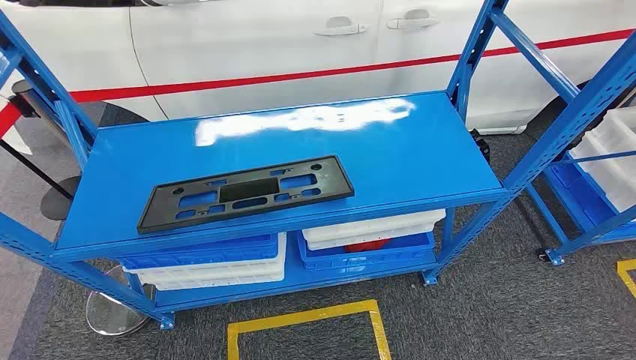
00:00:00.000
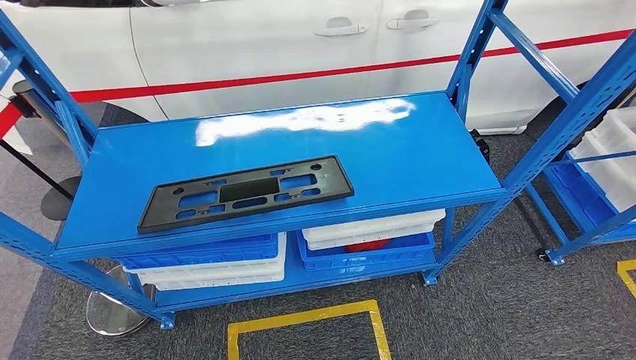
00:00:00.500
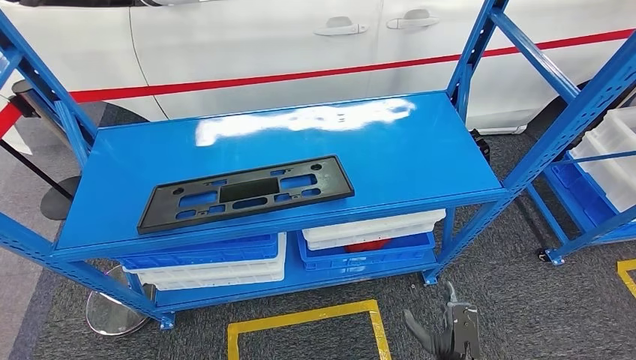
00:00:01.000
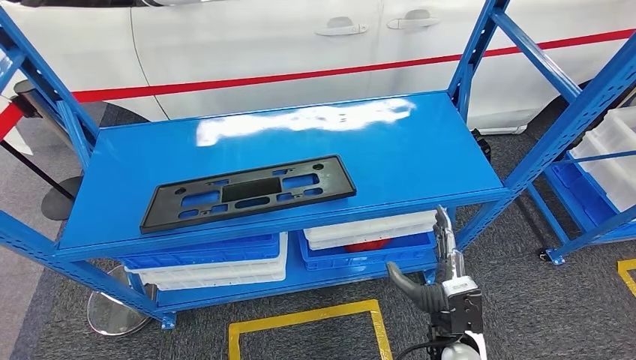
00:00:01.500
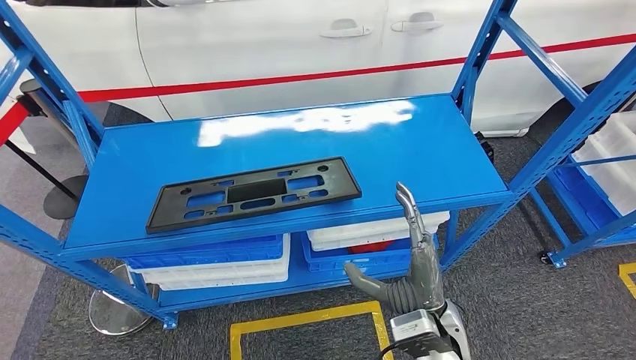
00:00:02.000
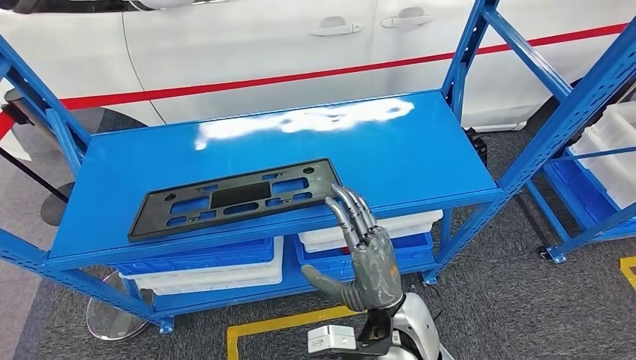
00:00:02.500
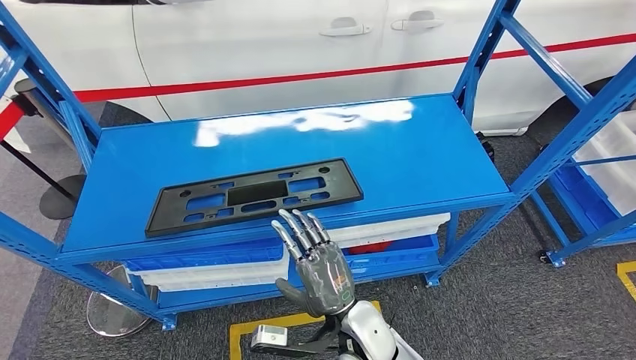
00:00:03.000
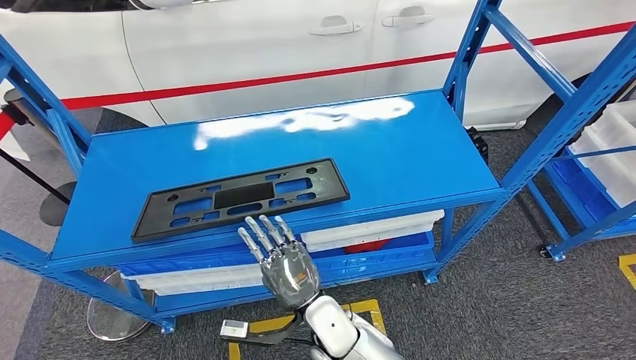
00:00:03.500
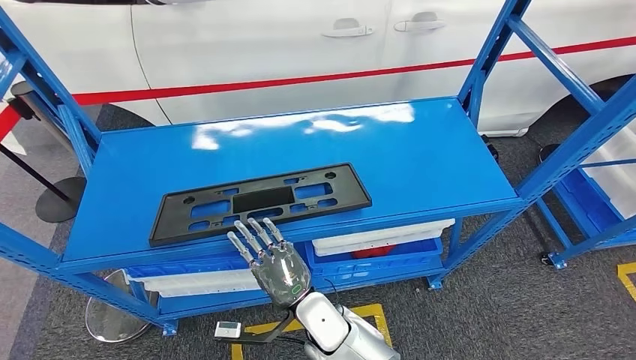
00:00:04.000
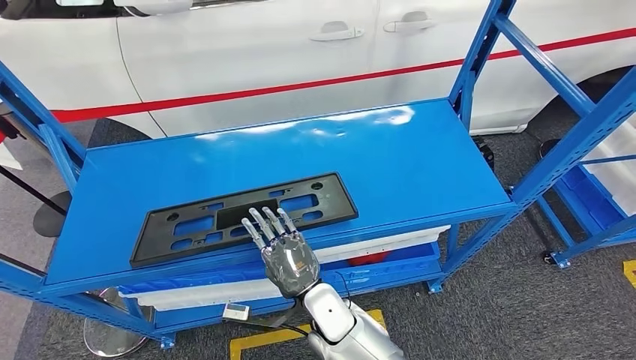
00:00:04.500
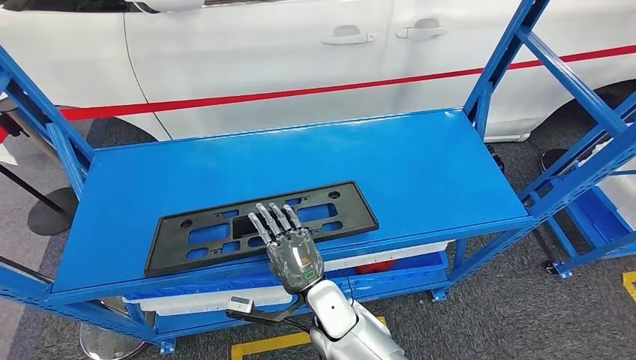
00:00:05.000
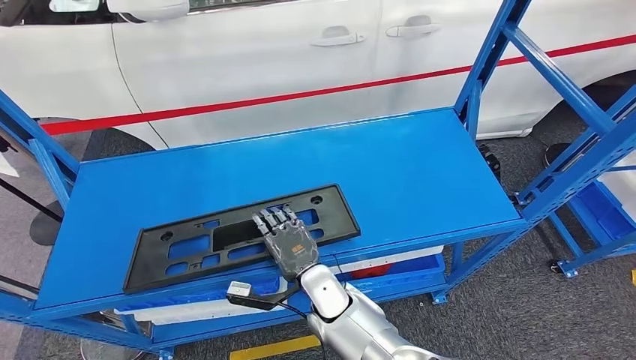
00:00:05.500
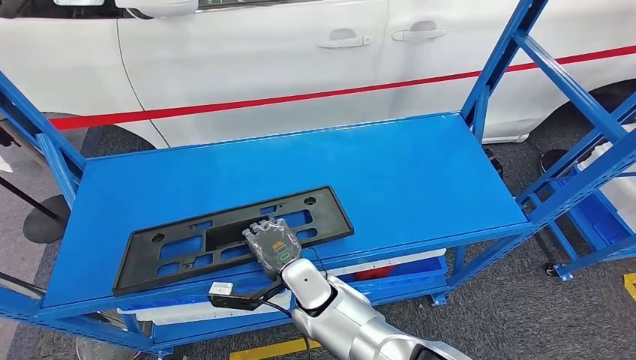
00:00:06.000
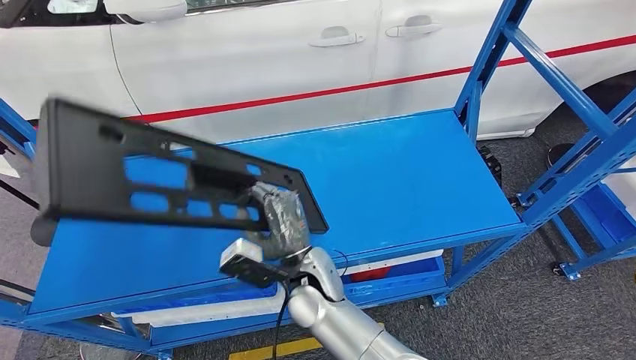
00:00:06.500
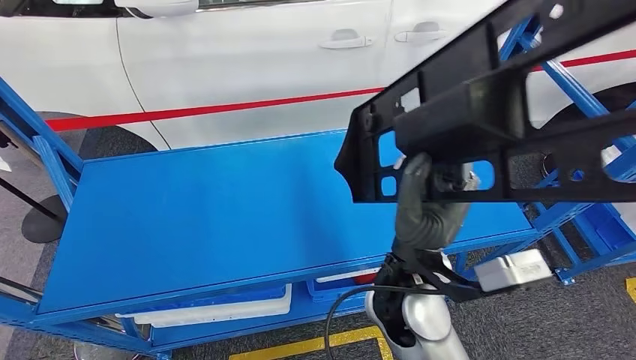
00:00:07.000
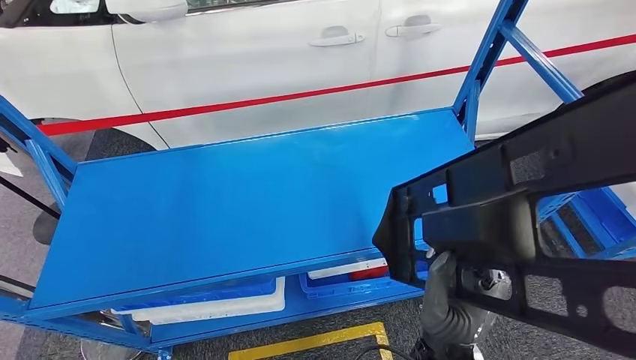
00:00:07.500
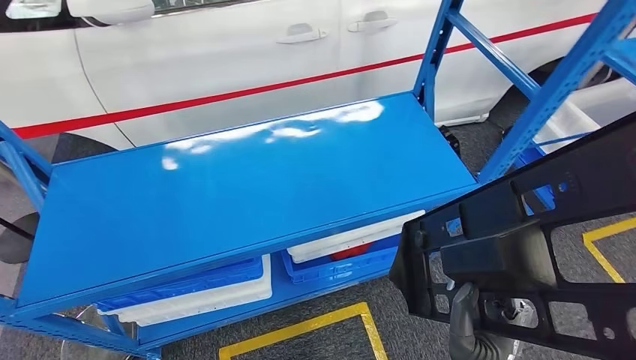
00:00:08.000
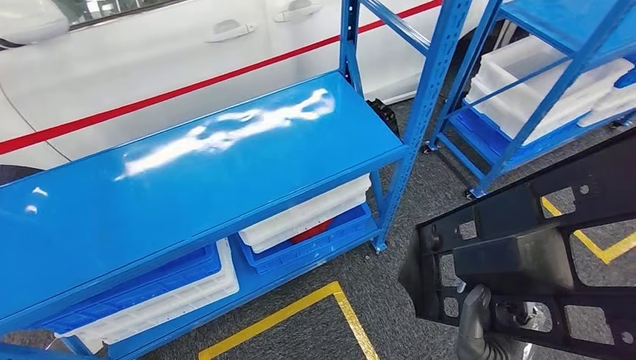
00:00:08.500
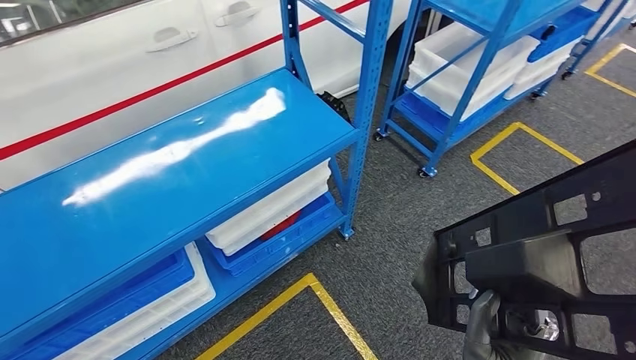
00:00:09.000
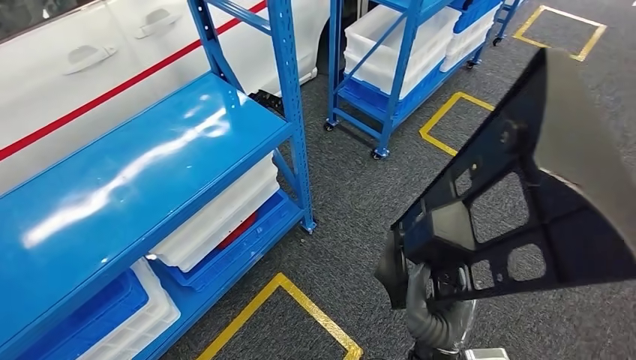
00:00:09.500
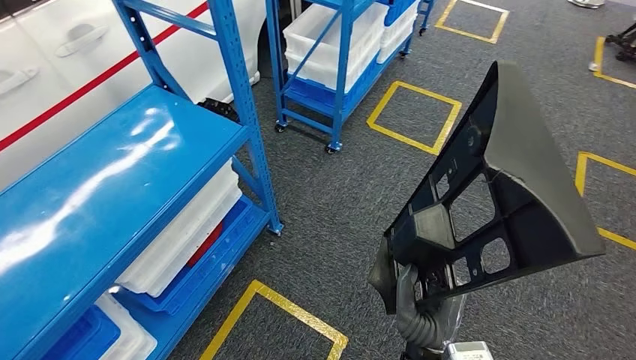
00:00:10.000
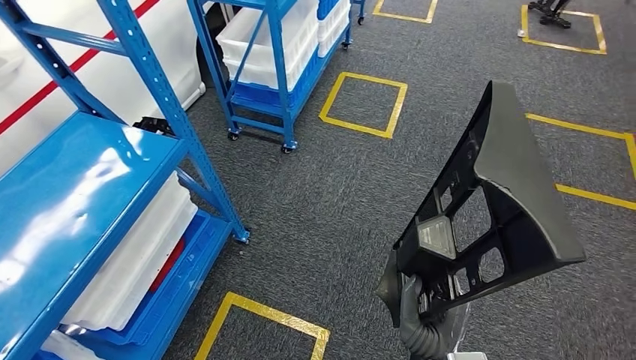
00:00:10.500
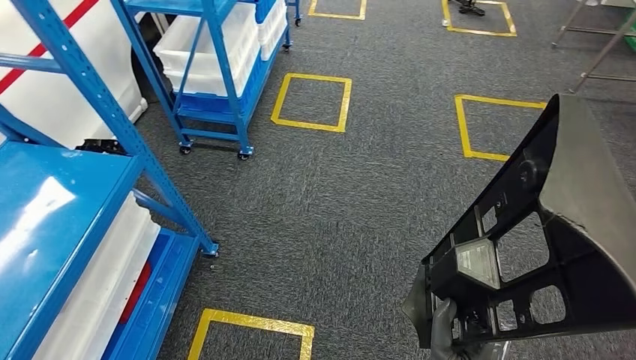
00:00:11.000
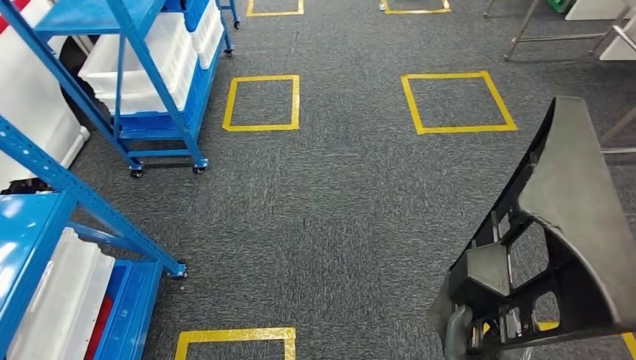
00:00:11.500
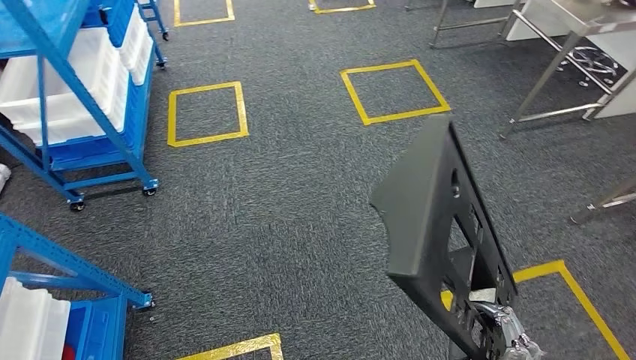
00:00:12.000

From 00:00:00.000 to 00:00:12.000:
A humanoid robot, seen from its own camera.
Step, from 00:00:00.000 to 00:00:07.500: Pick up the large material from the shelf.

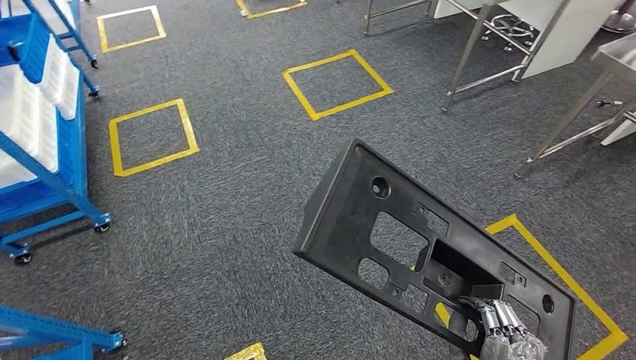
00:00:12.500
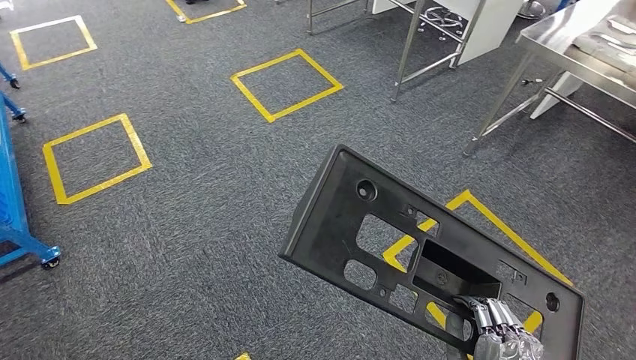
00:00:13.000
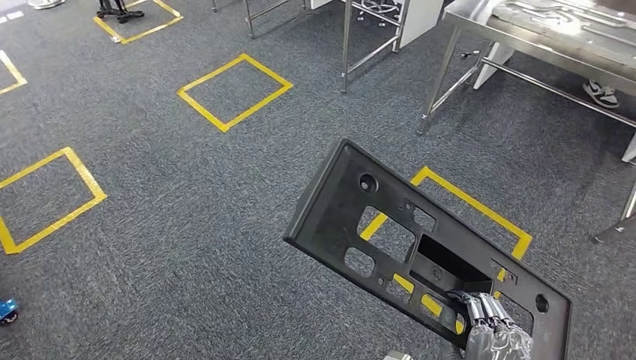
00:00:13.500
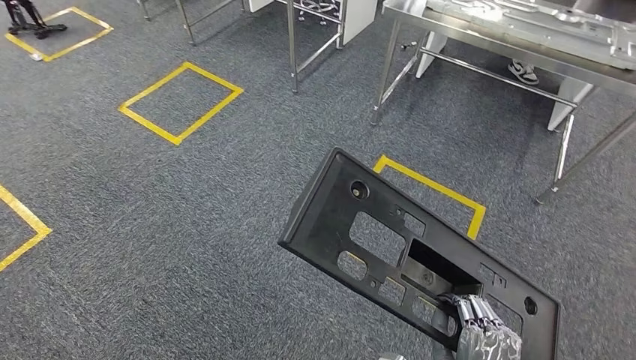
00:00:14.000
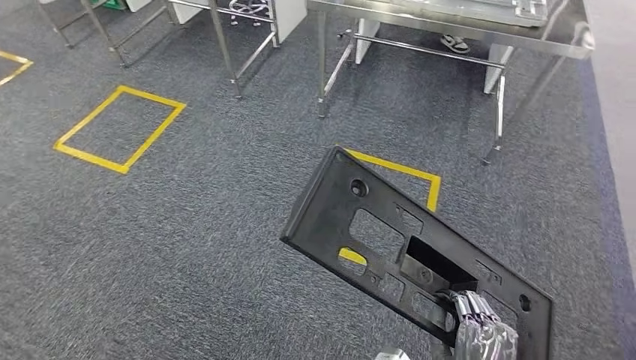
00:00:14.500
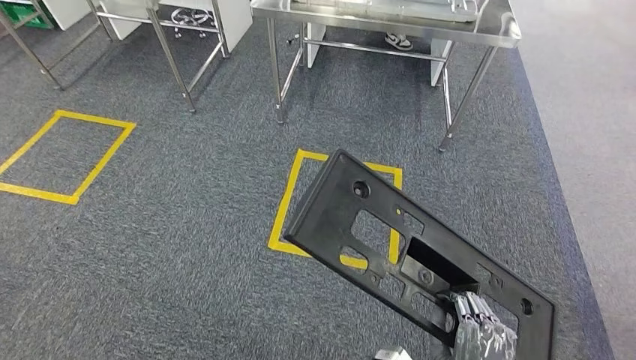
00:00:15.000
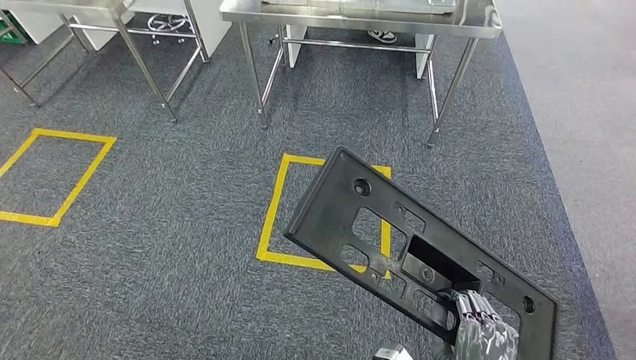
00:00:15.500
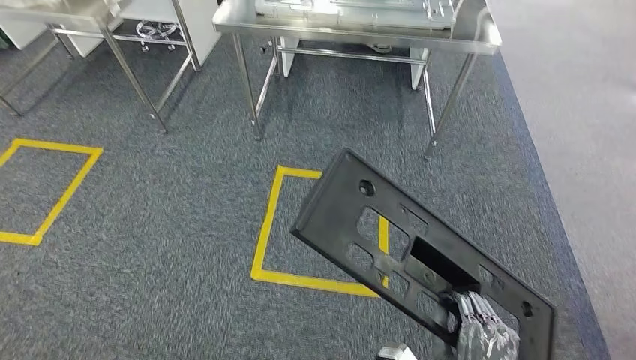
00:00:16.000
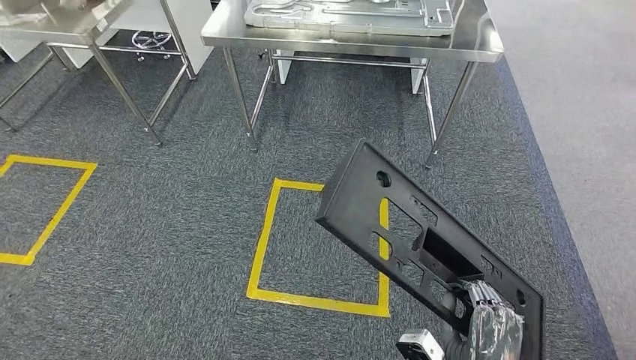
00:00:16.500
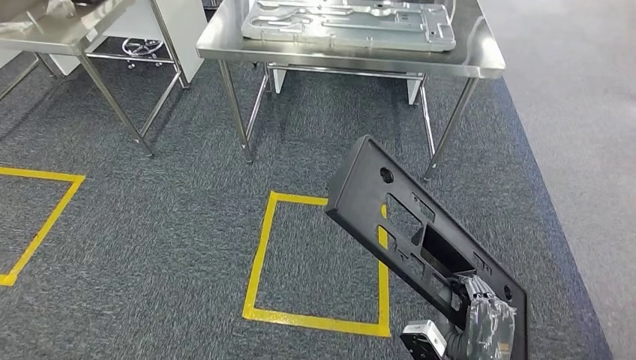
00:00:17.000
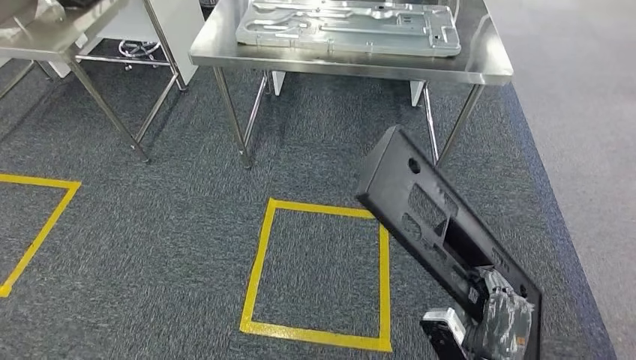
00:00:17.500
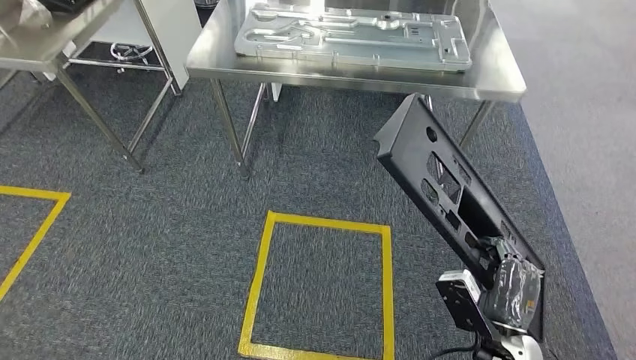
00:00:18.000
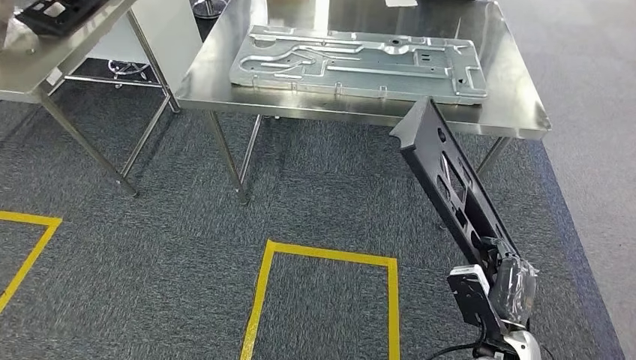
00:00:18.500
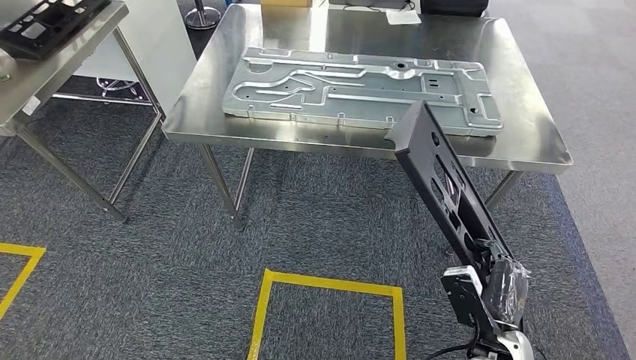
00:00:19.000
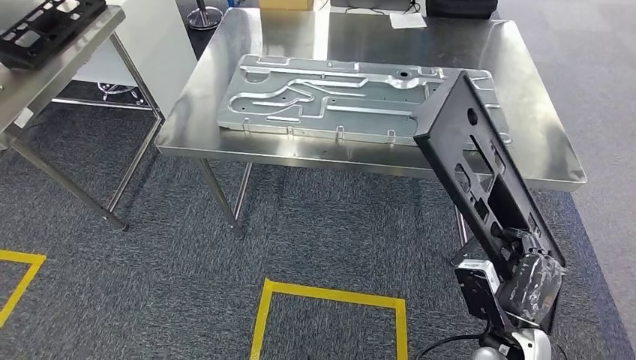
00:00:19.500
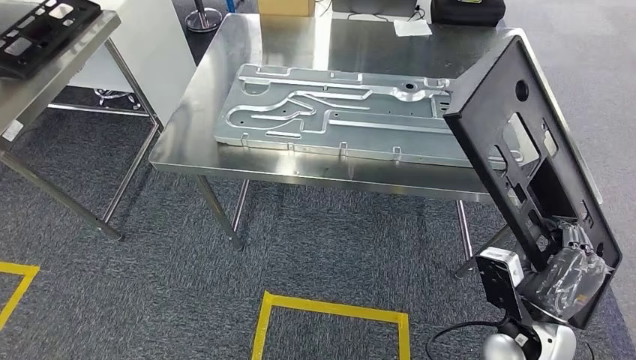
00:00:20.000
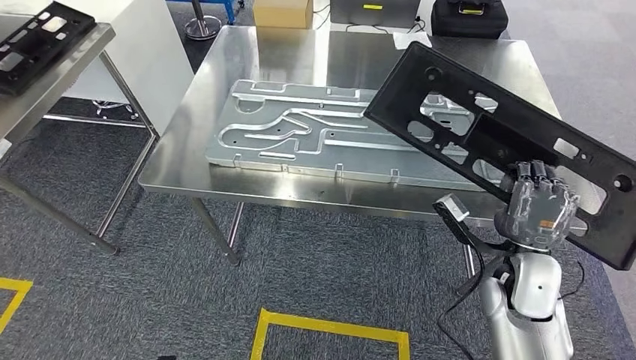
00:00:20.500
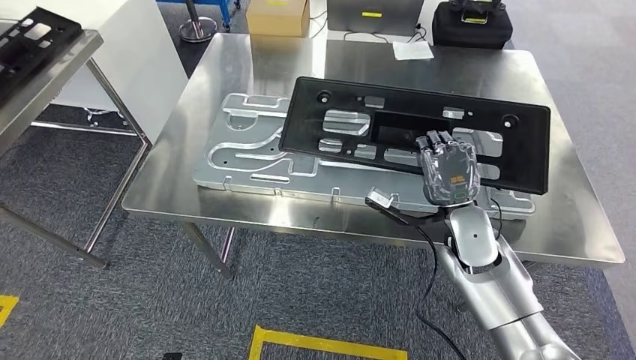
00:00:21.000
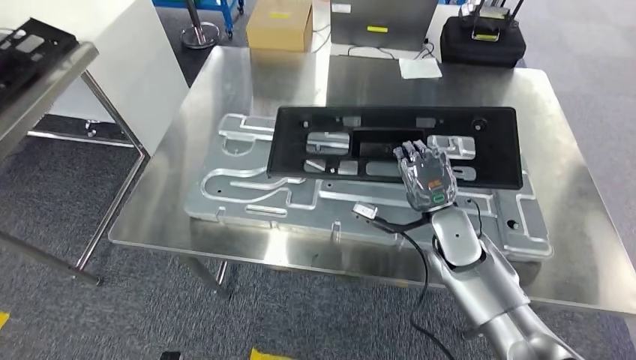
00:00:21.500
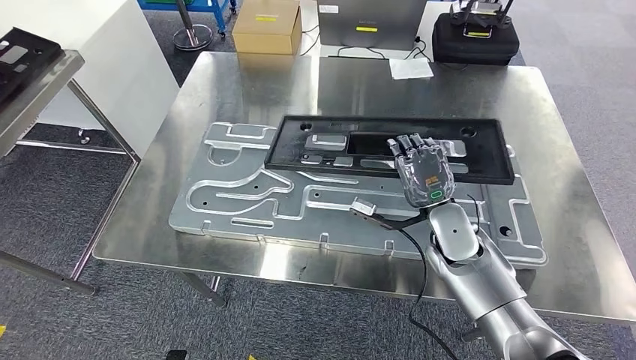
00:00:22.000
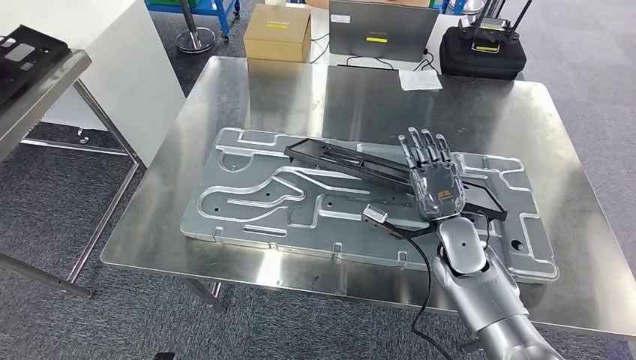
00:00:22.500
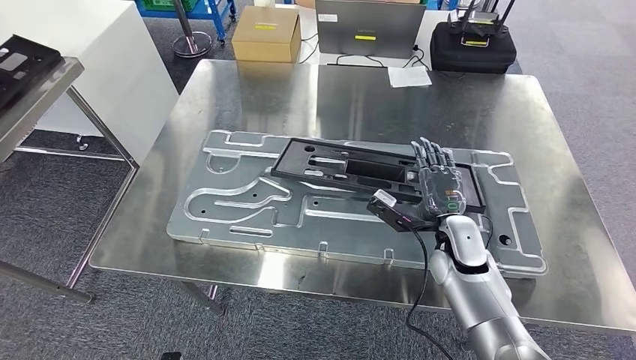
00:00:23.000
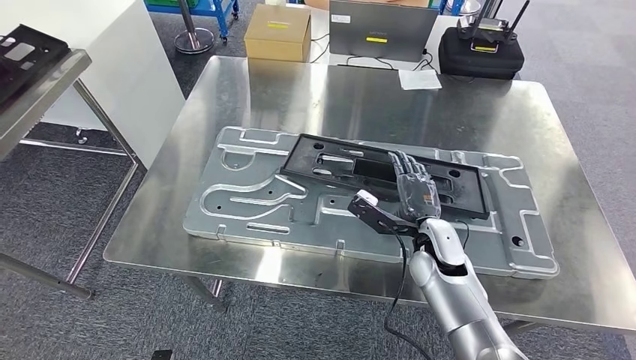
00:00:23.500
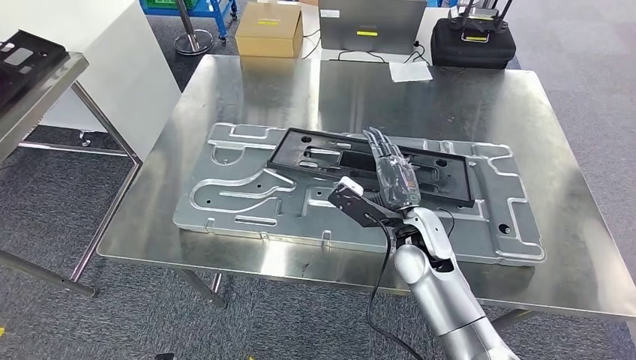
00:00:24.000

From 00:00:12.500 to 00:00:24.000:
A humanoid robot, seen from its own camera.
Step, from 00:00:12.500 to 00:00:20.000: Move the large material to the workbench.
